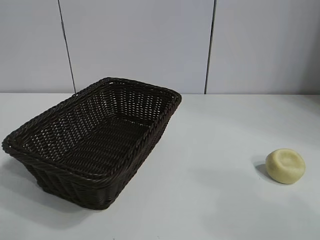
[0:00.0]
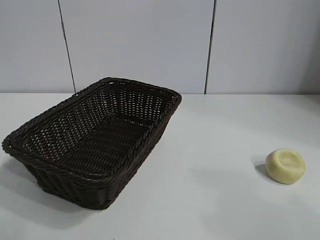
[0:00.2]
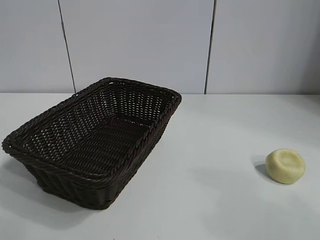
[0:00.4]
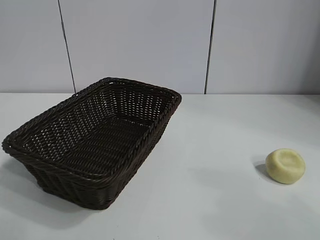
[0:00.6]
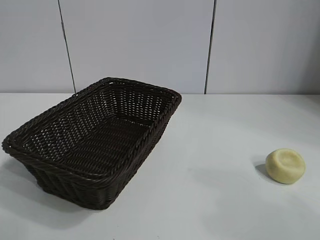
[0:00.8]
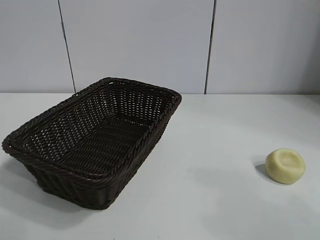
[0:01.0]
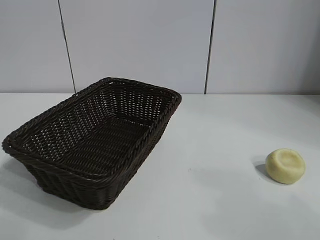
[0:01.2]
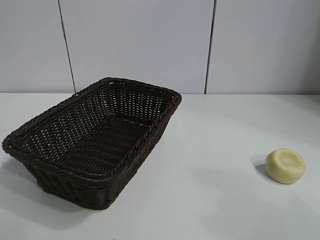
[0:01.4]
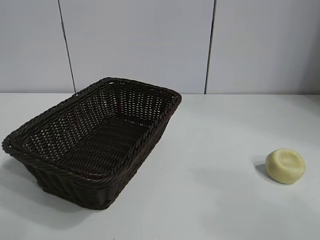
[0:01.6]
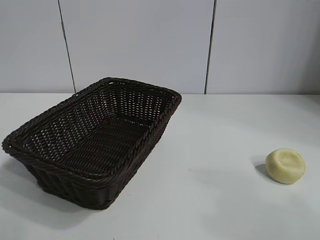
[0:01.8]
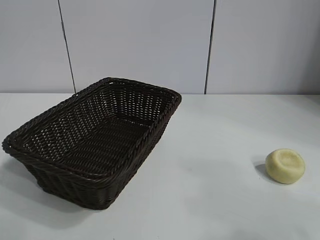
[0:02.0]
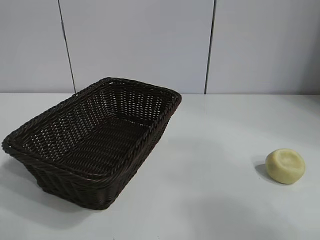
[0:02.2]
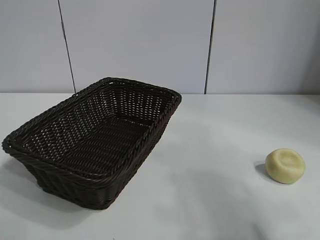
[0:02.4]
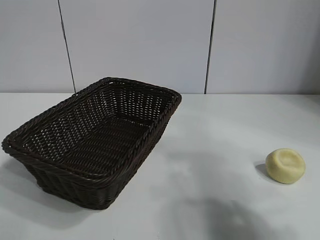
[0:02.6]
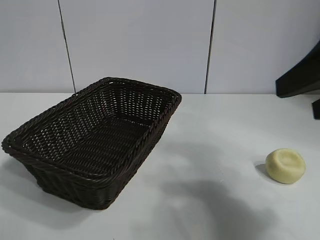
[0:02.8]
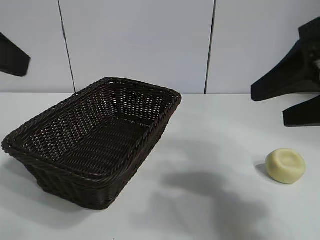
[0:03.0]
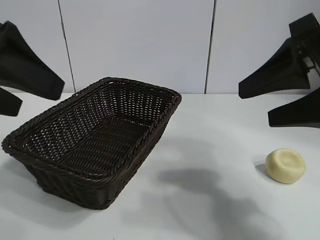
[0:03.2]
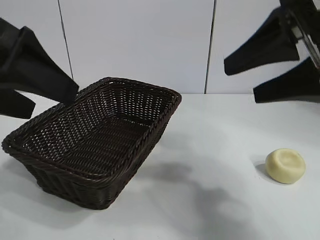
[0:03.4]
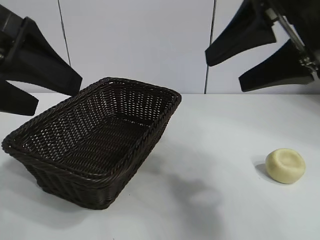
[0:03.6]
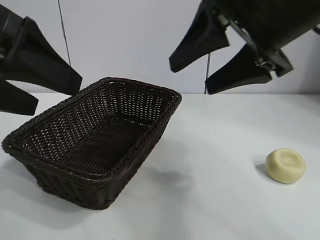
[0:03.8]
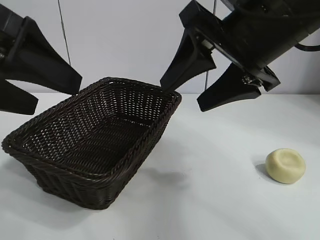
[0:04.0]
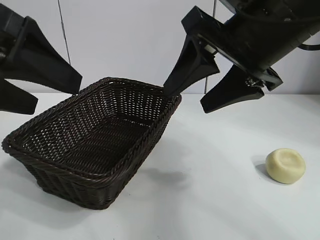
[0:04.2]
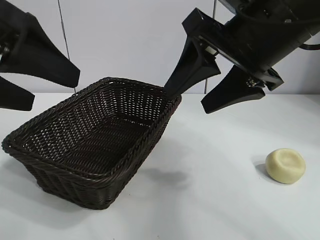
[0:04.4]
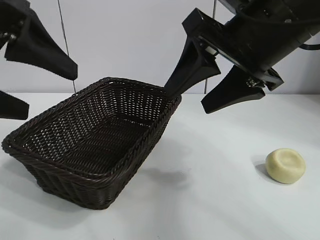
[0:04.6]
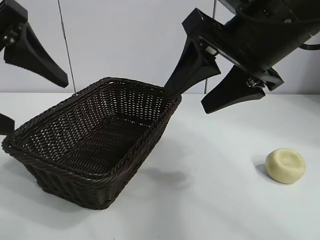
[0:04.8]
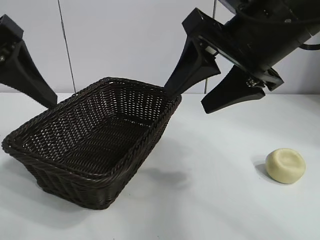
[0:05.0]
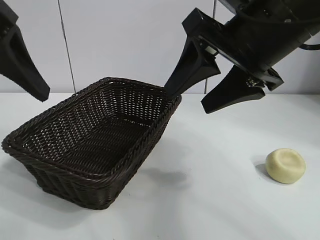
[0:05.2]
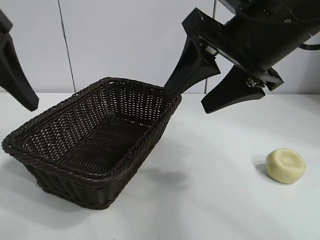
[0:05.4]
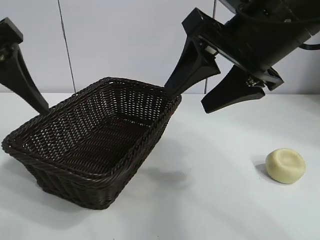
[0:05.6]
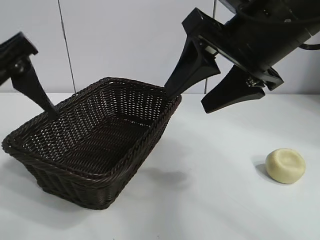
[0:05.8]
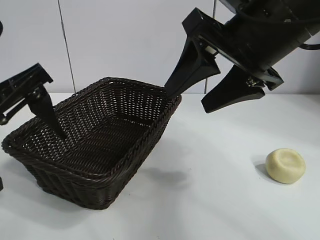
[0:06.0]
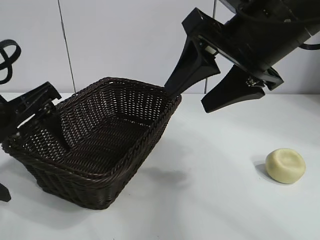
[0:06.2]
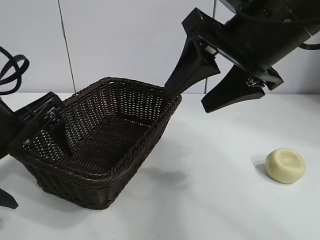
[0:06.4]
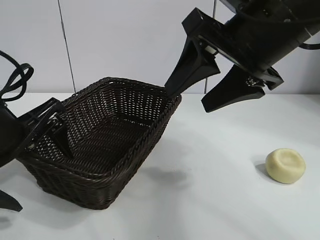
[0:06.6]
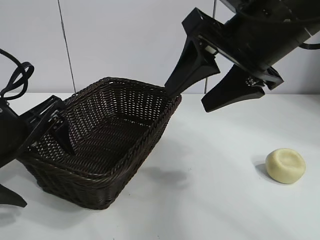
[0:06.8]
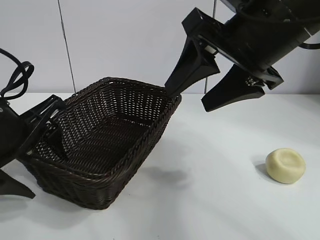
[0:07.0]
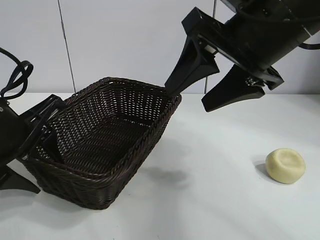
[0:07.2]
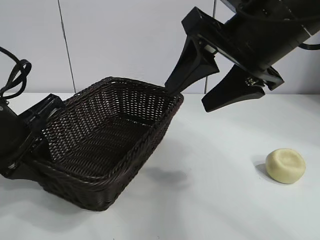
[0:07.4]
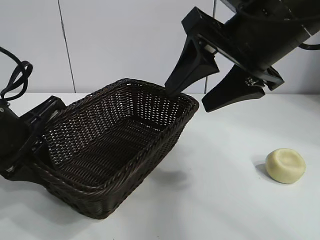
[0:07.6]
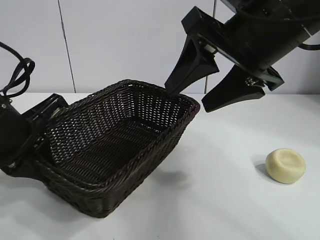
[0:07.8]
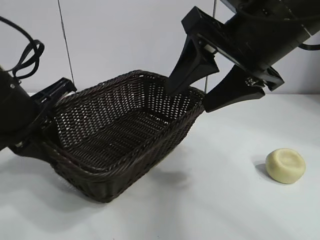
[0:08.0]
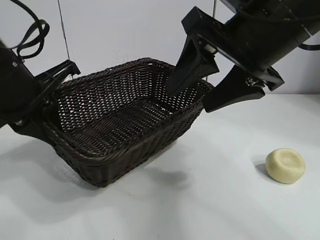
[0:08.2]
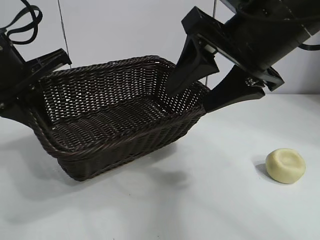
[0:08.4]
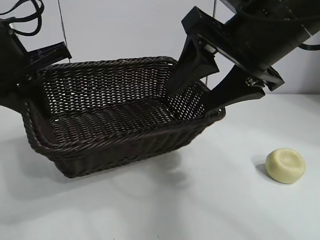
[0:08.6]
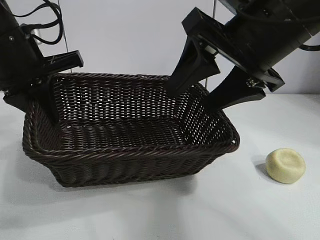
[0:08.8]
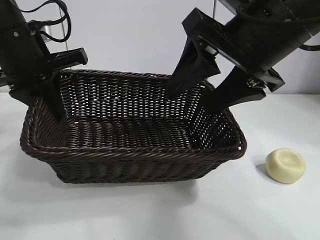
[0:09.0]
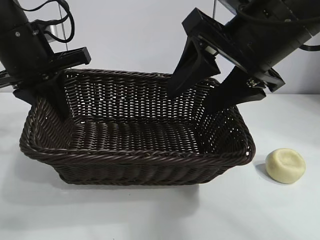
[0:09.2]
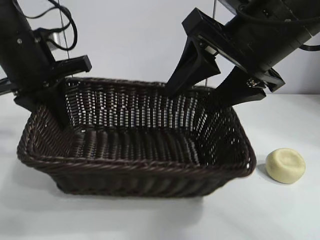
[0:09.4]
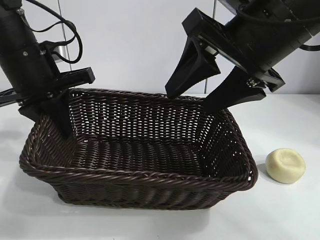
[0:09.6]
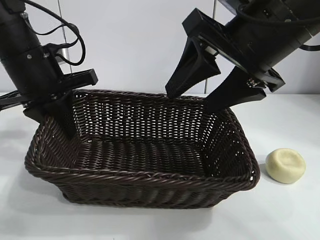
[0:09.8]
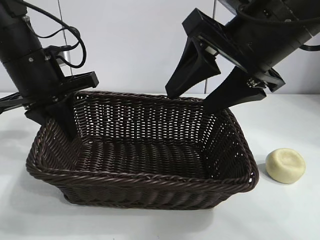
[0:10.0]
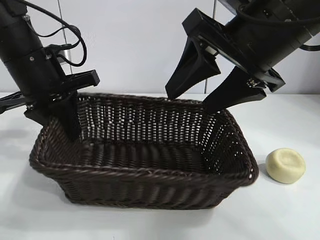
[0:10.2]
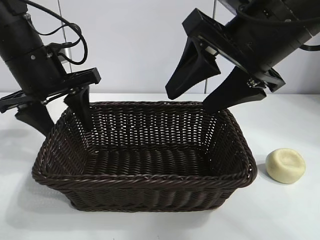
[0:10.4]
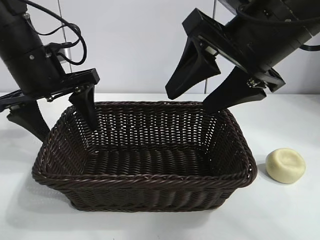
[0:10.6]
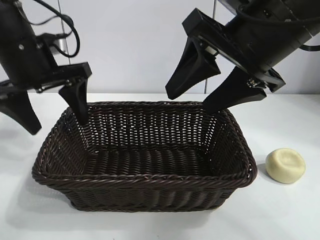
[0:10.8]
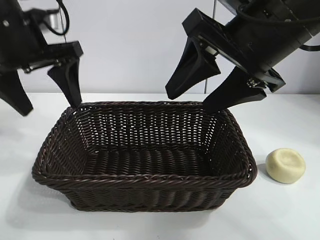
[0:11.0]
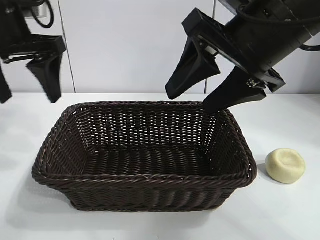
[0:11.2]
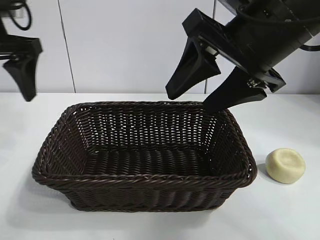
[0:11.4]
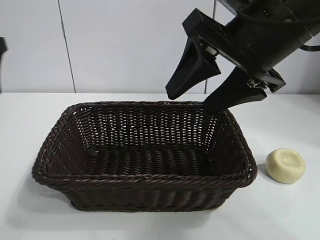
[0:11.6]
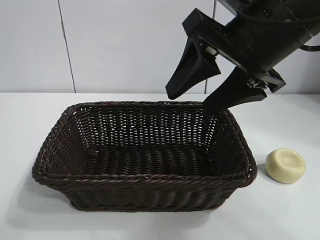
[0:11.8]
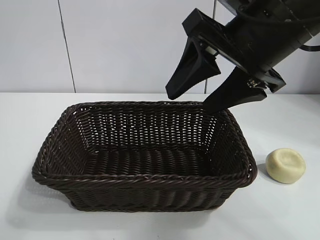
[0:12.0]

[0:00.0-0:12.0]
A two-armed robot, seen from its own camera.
Task of the whole recording: pick up the egg yolk pastry and put it into the basket.
Step, 0:02.0 to 0:07.4: Grasp the basket with left gripper.
Step, 0:07.6 to 0:10.6: Place the basket in the center of view with left gripper.

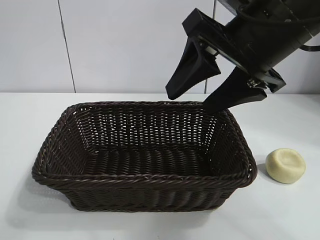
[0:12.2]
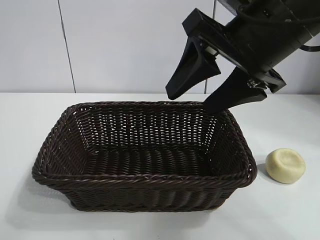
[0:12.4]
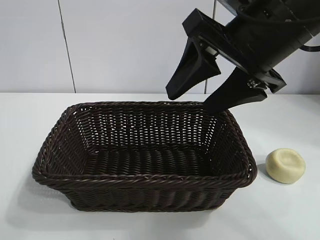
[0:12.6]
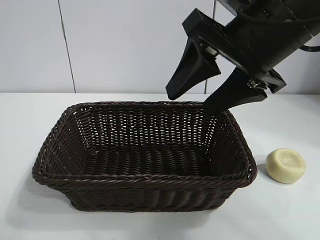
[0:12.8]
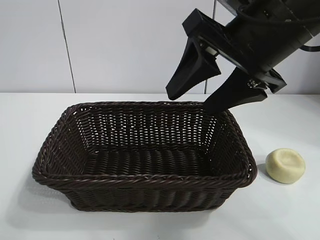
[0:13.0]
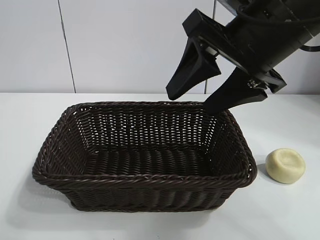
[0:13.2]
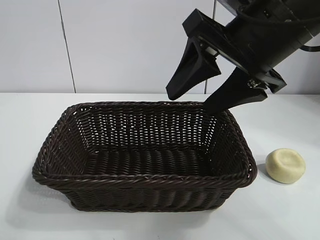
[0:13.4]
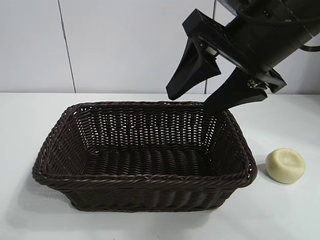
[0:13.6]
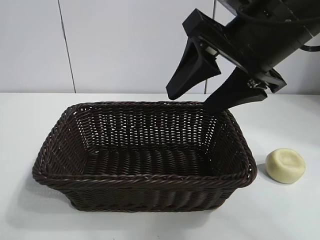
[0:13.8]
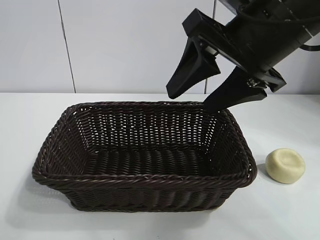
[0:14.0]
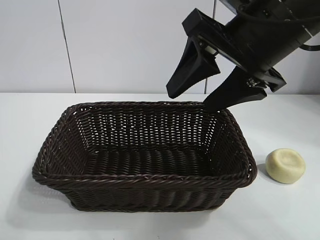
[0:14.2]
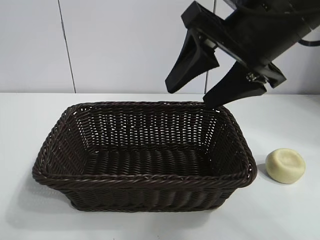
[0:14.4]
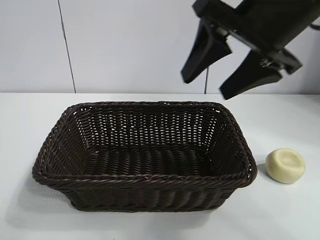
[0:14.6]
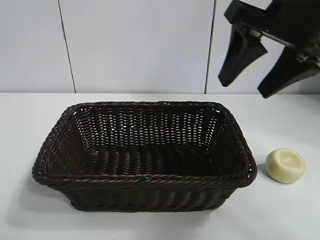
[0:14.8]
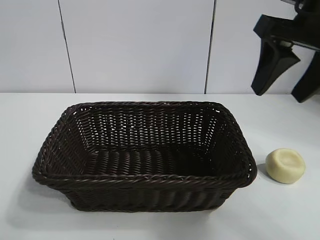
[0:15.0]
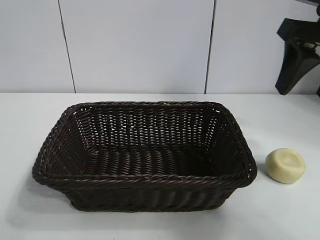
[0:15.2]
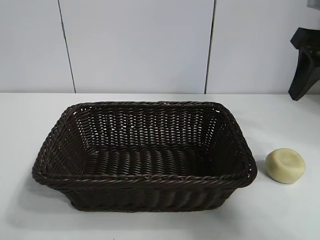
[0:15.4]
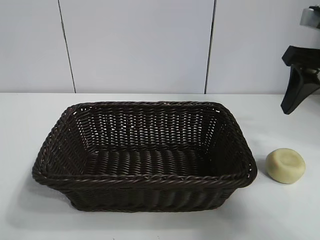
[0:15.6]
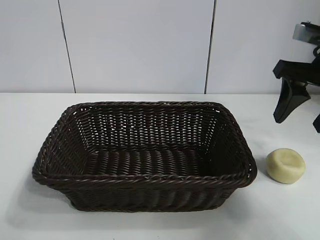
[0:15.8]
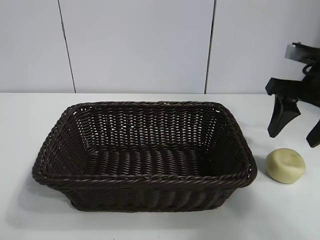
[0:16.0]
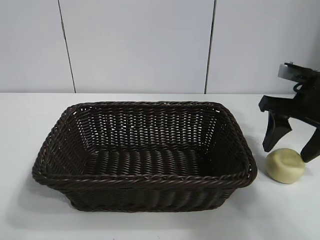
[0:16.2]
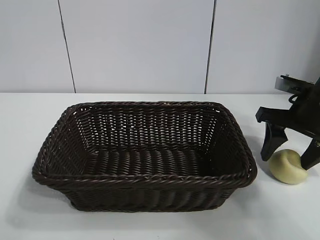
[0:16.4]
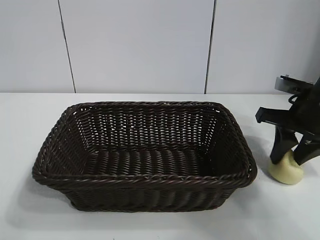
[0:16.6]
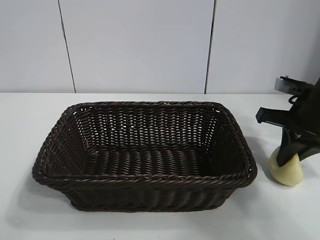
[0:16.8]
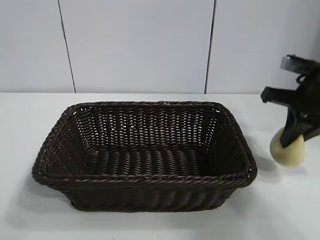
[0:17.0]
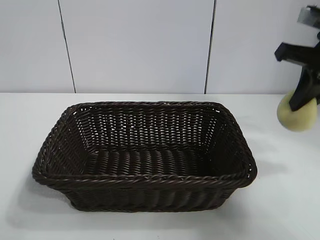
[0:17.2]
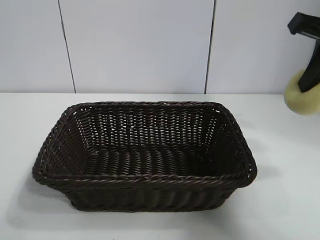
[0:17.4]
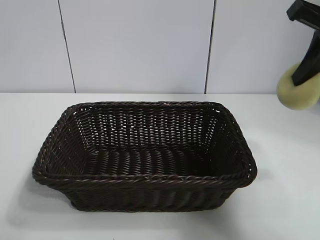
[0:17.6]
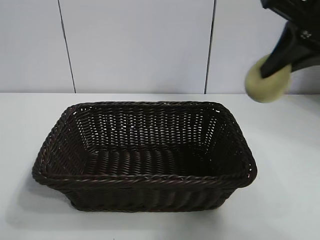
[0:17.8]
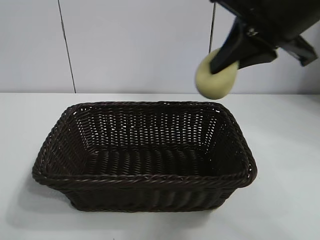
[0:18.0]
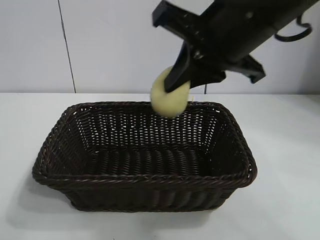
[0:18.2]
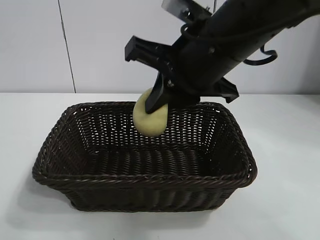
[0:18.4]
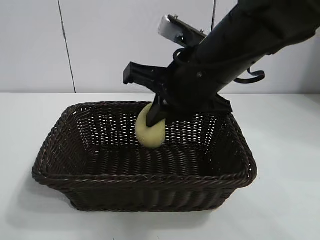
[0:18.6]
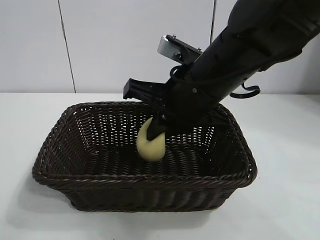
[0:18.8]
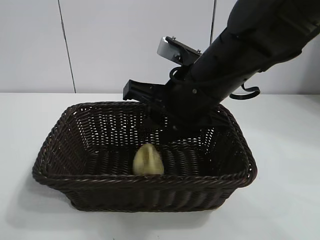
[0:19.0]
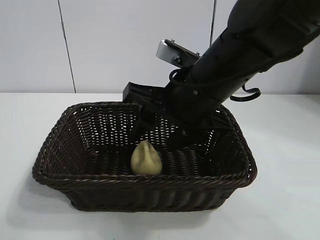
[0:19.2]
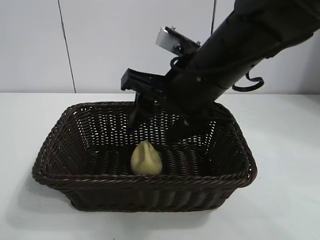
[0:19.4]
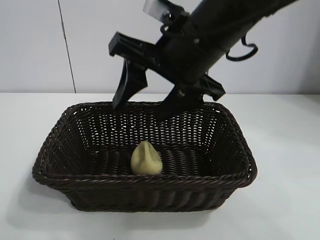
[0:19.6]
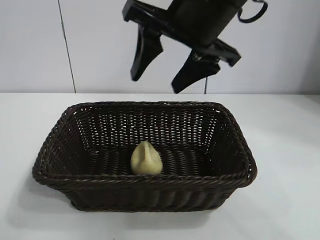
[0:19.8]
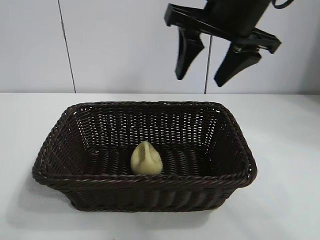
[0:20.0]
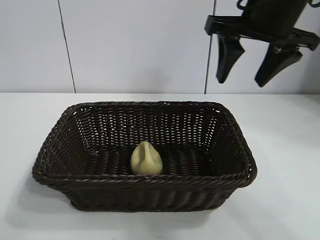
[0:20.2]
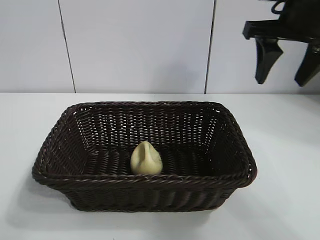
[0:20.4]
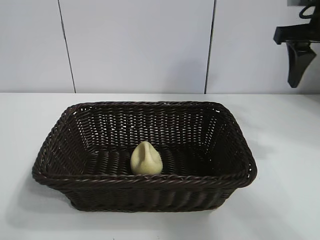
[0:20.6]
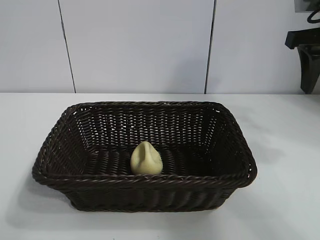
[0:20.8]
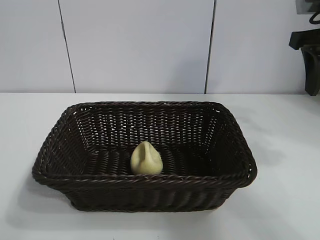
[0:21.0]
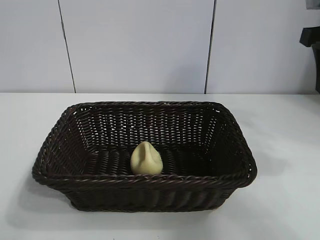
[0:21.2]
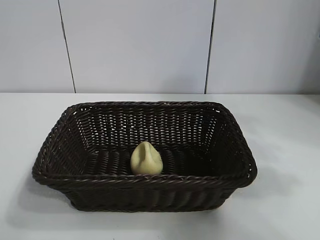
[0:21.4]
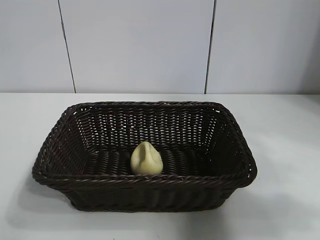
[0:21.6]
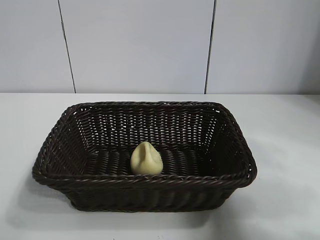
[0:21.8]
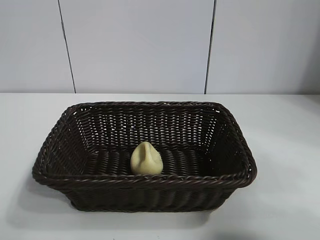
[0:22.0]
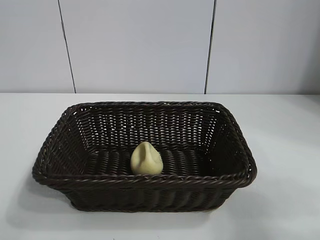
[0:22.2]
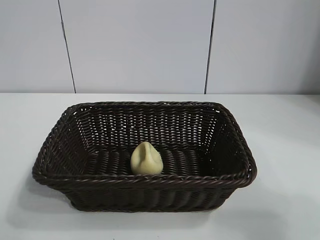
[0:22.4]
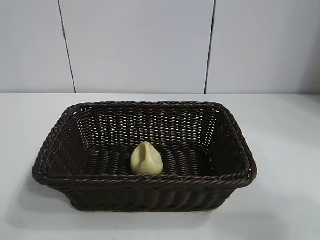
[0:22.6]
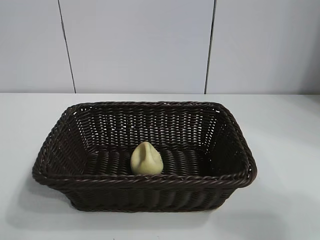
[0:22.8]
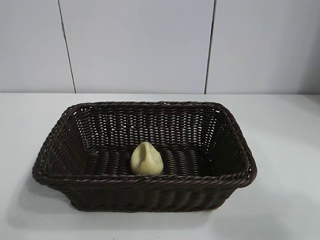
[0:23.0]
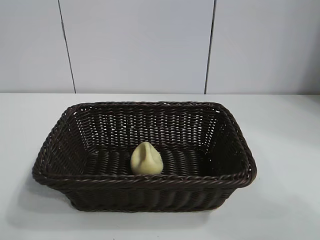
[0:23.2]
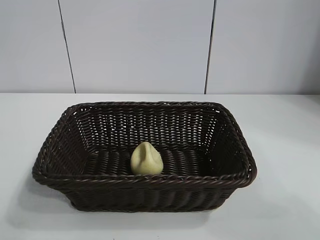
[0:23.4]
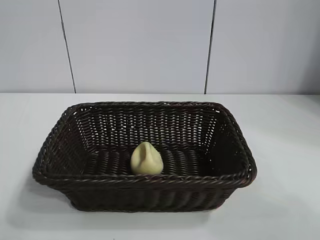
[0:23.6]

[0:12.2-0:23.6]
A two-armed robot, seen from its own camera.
Task of the whole recording: pick up the egg yolk pastry and put it into the basket.
Step, 0:12.2 to 0:16.6: Grasp egg yolk pastry with right gripper.
Step, 0:17.0 to 0:19.4: Place the egg yolk pastry in the basket with right gripper.
